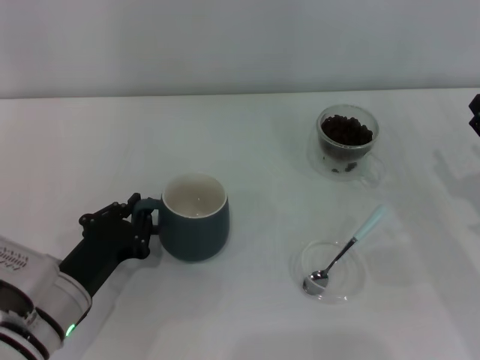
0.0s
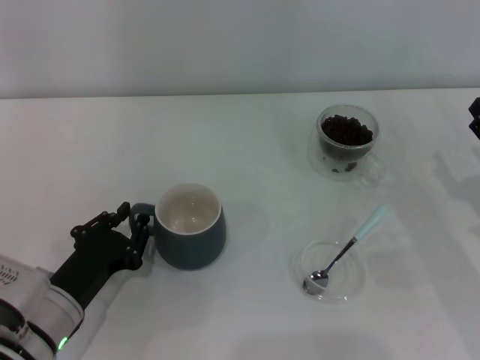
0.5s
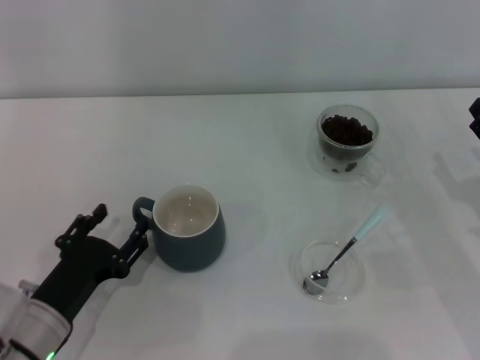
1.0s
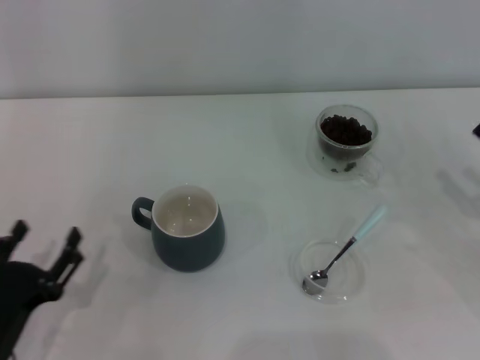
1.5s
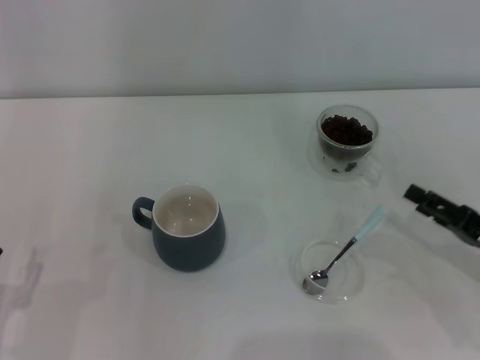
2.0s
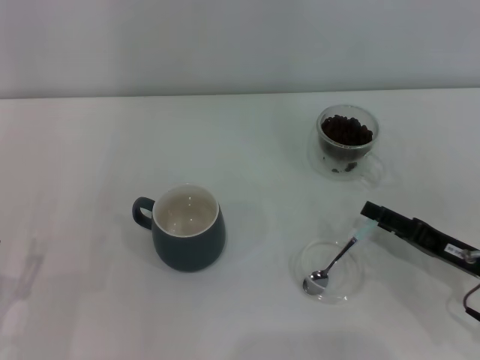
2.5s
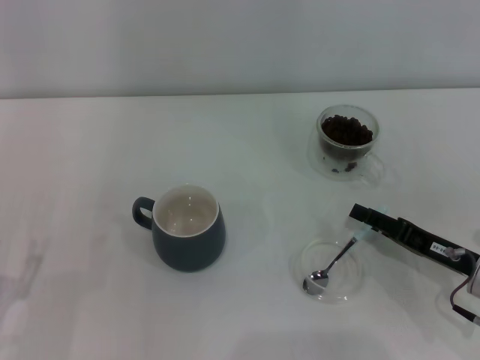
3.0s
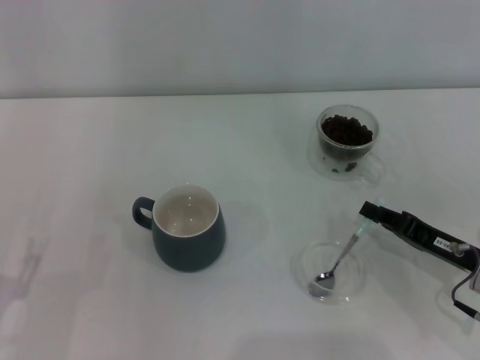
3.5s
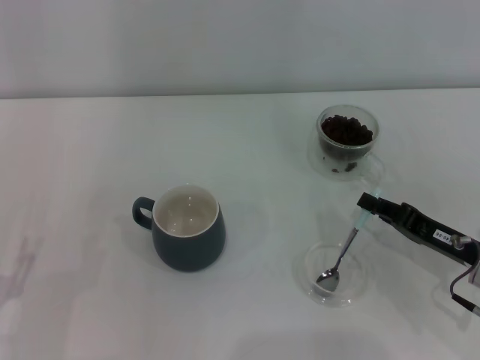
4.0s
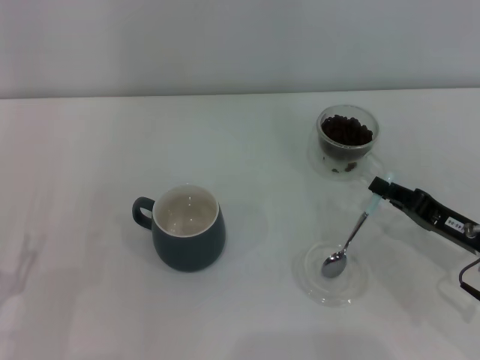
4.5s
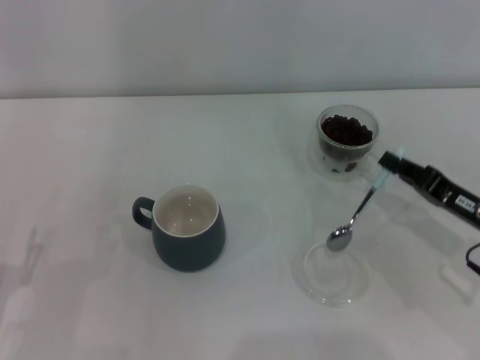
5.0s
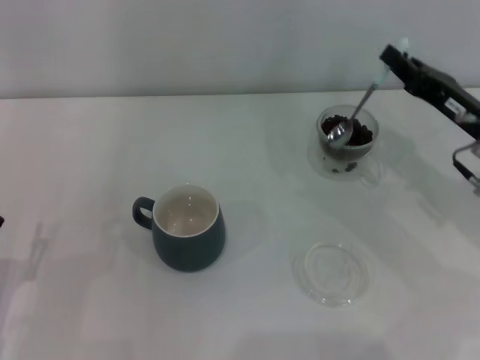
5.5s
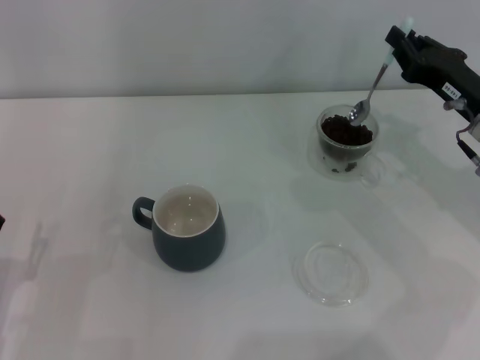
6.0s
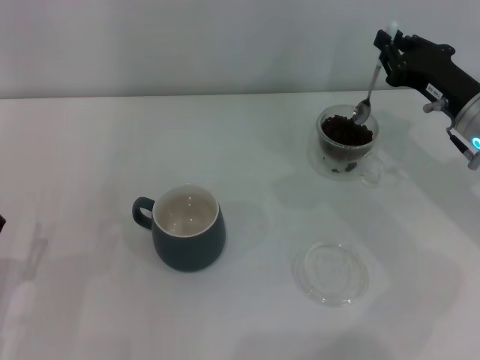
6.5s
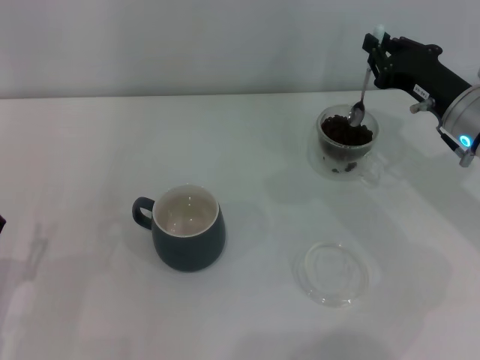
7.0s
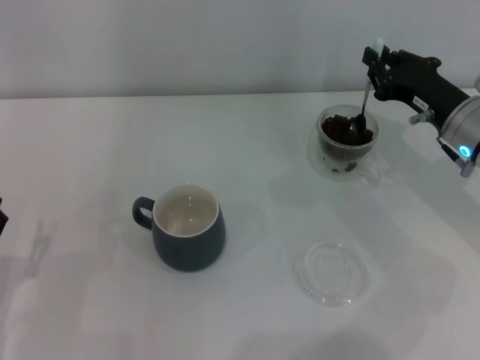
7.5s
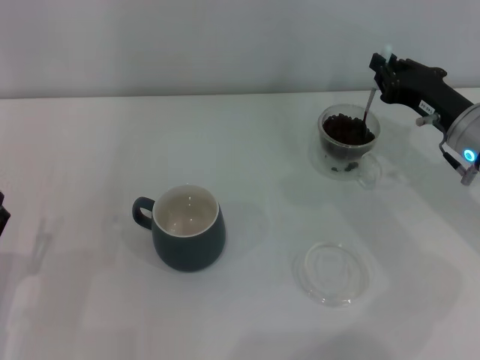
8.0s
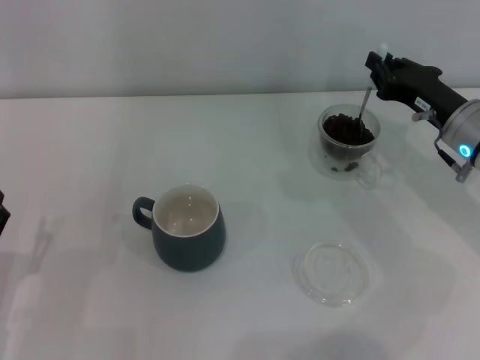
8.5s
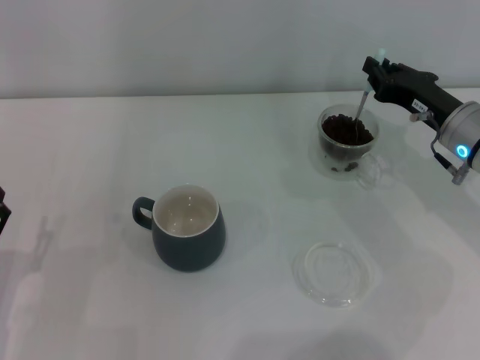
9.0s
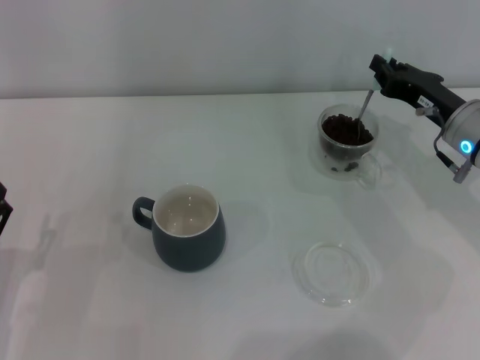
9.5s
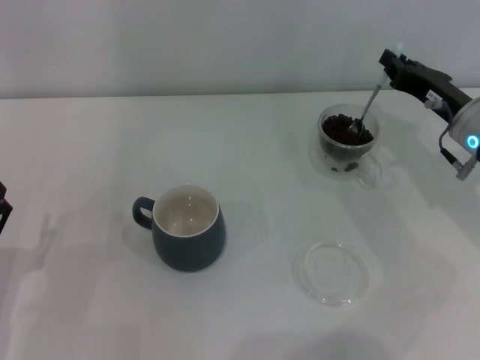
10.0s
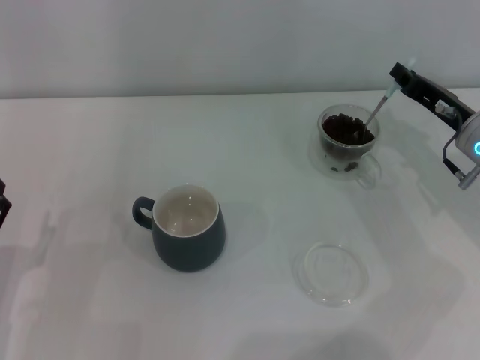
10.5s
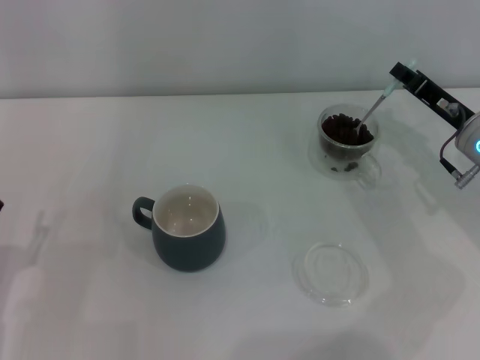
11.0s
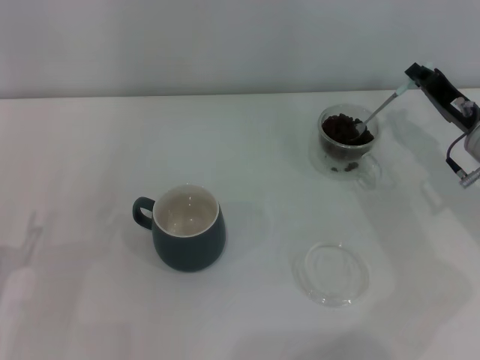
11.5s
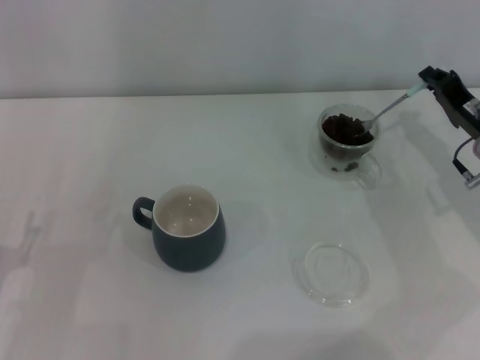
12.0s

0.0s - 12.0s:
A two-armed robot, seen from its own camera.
Task of the whole recording: Use a blue spoon to take out the coffee beans from the glass and pour them into the gray cup.
Step, 1.5s - 4.5s: Pick up the spoon with the right gripper.
0.0s - 2.0s: The left gripper goes about 15 cm to the left and backward, and opens up.
2.0s - 4.0s: The right gripper moves some 5 cm, and closes its fingers.
4.0s - 6.0s: The right gripper goes roughly 15 cm forward and upward.
6.0s - 10.0s: There are only small adjustments of the grippers.

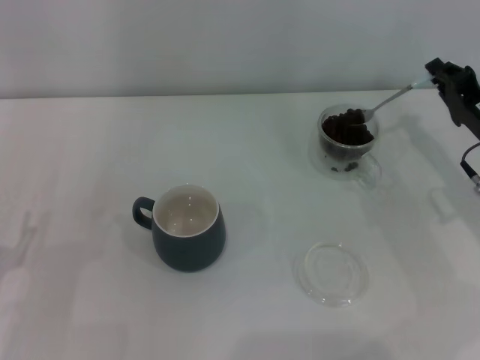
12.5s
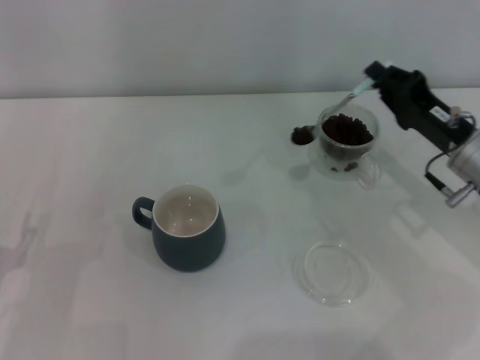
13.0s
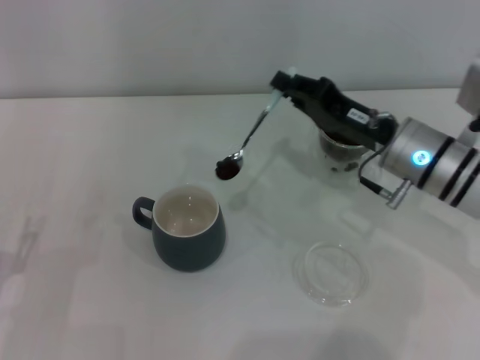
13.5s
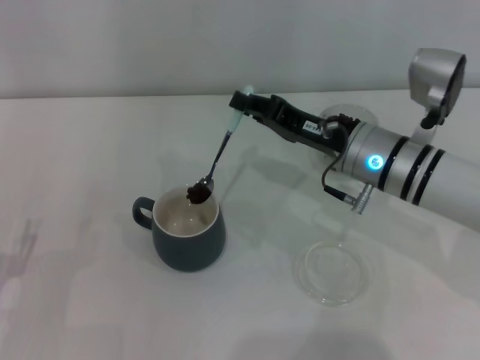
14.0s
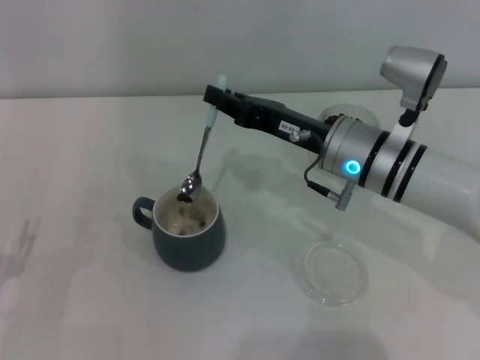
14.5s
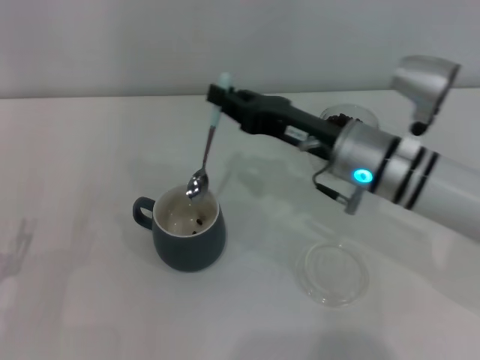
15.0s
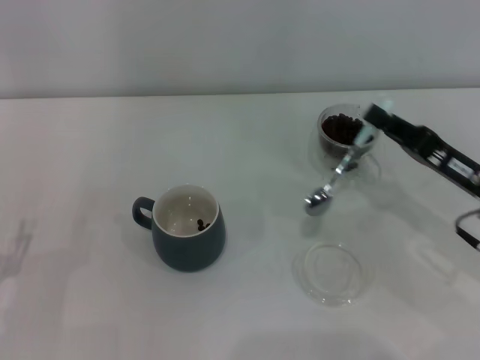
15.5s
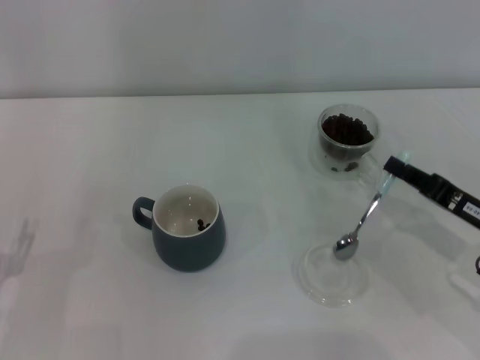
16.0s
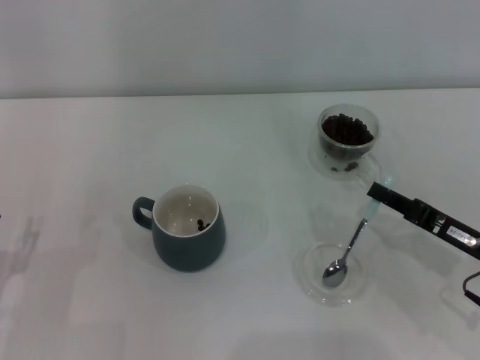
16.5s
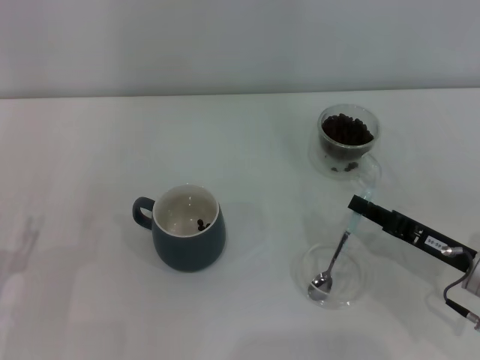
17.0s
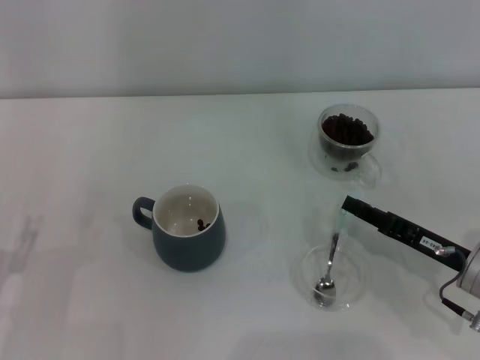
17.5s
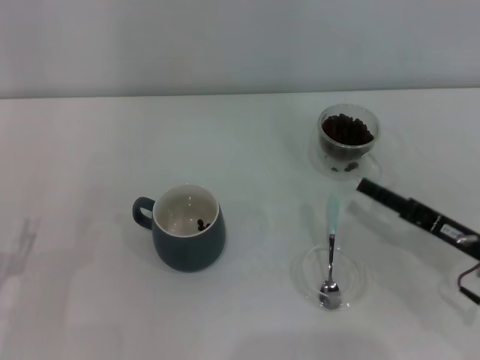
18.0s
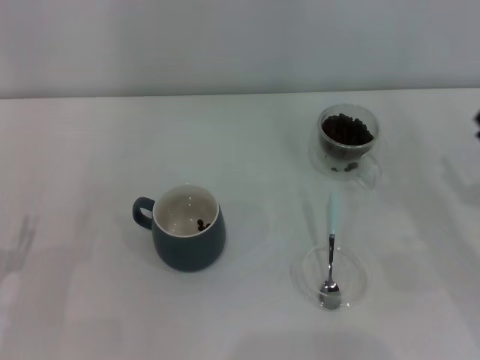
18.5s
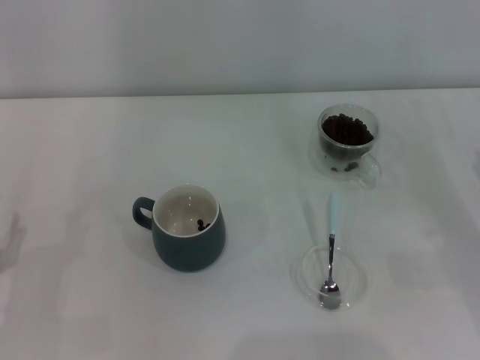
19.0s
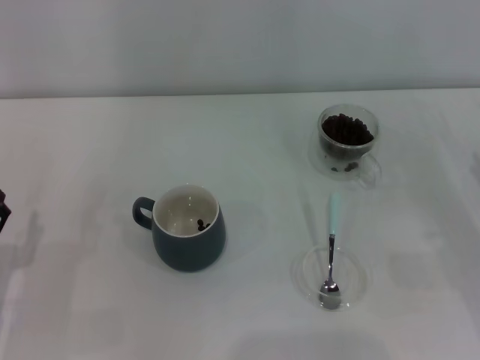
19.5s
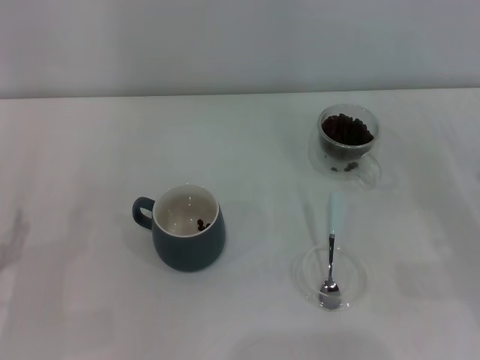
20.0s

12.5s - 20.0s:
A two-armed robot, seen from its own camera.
Task of the whole recording: Use a blue spoon to take out the coffee beans from the glass and pour them into the gray cup.
Step, 12.5s - 15.0s: Scoop a spoonful of beans into the cup with the right gripper.
Step, 15.5s - 17.5s: Place the spoon back in its original place with the right gripper.
12.5s - 14.5s: The right gripper moves to the left, approximately 15 cm.
14.5s - 16.5s: The right gripper heads to the right, backward and downward, covering some 20 cm.
16.5s - 18.0s: The right gripper opens up.
18.0s - 20.0s: The right gripper travels to the right by some 5 cm.
